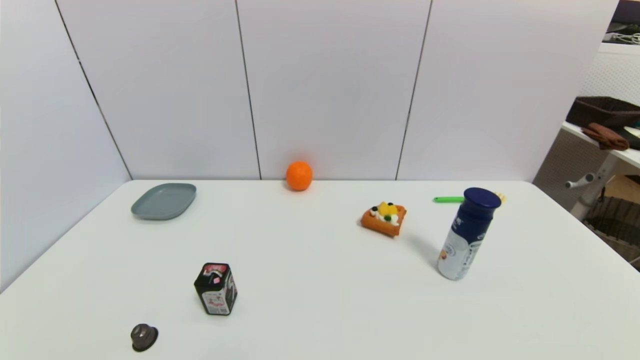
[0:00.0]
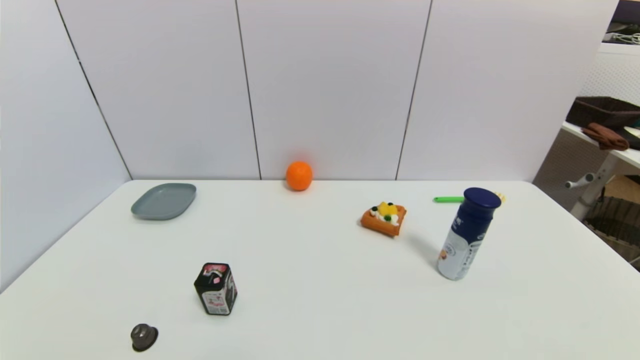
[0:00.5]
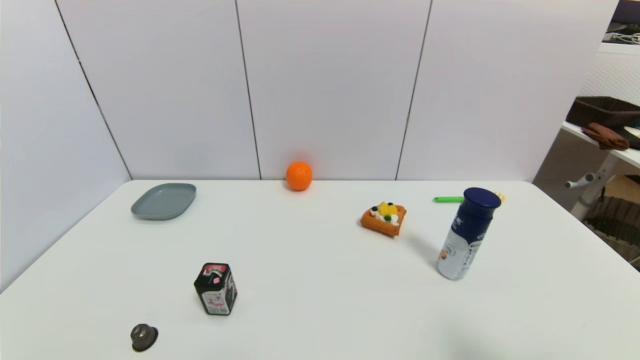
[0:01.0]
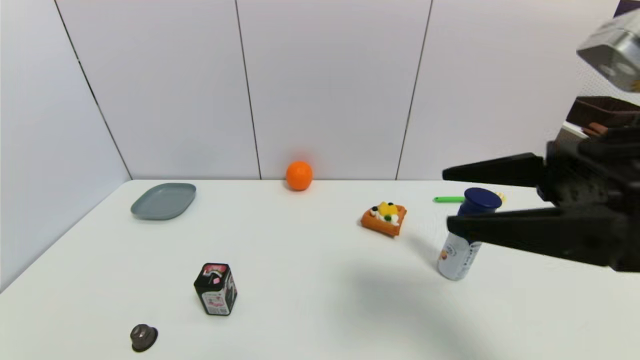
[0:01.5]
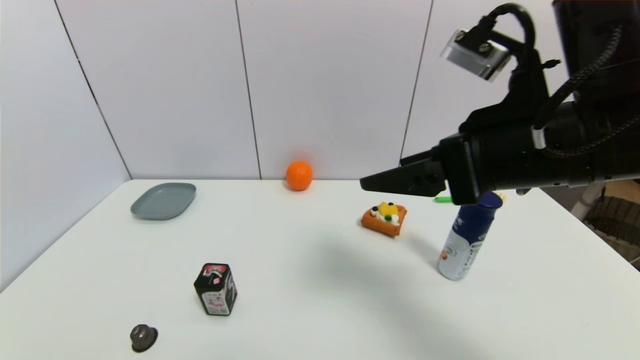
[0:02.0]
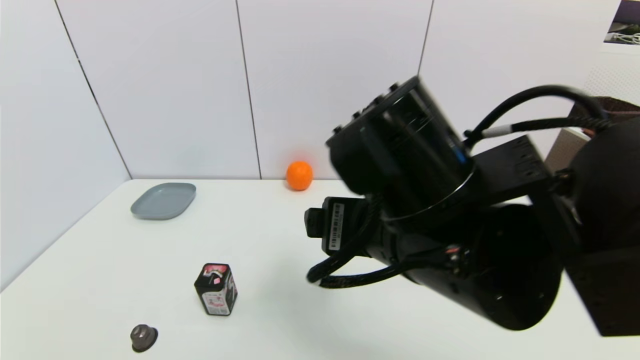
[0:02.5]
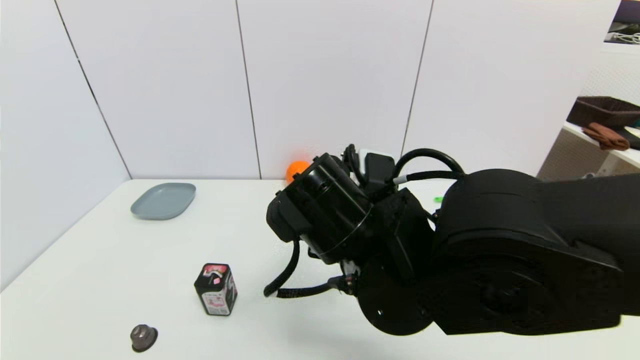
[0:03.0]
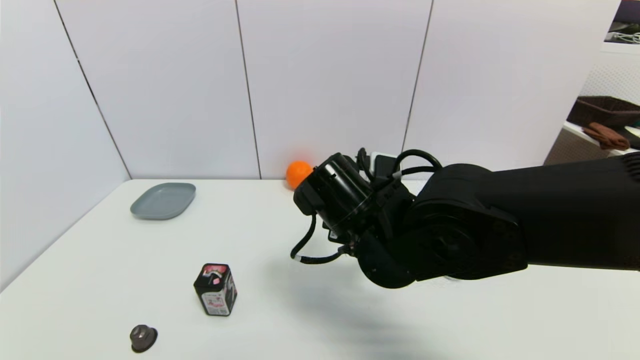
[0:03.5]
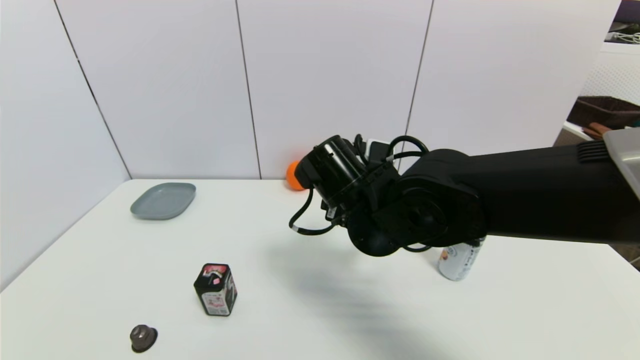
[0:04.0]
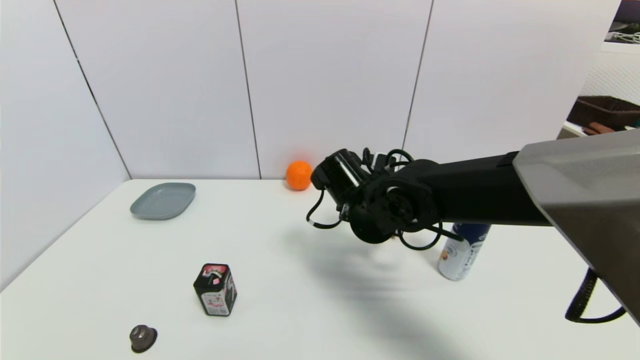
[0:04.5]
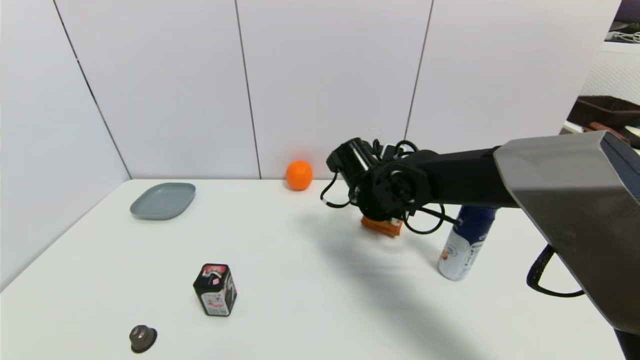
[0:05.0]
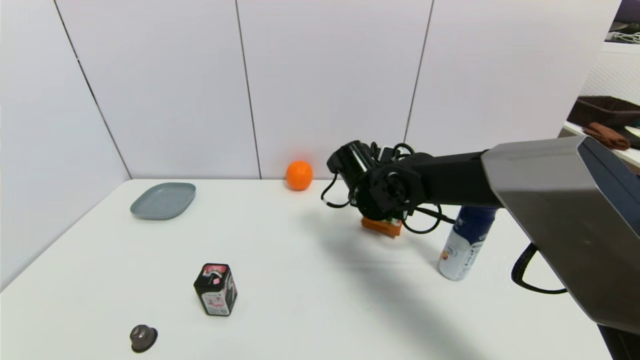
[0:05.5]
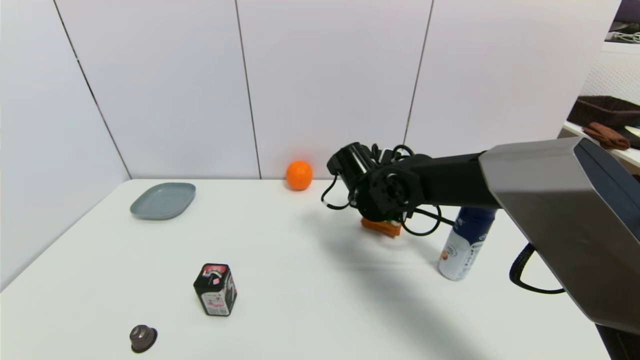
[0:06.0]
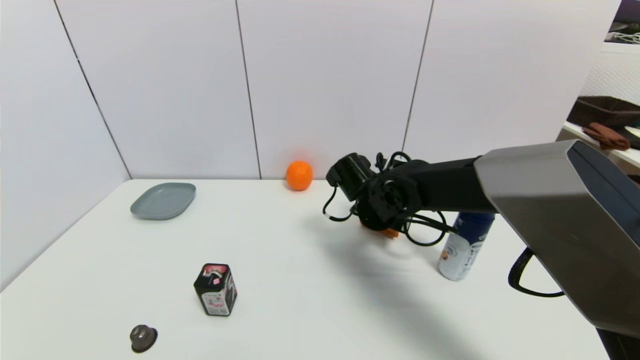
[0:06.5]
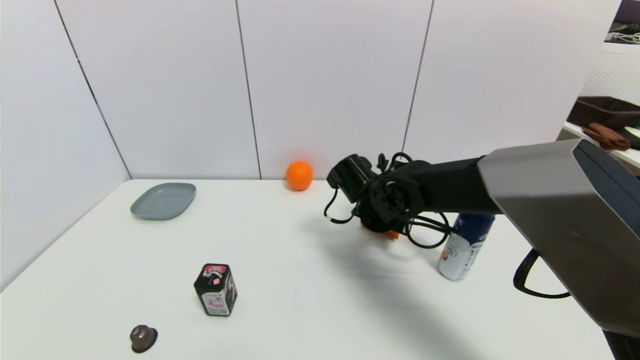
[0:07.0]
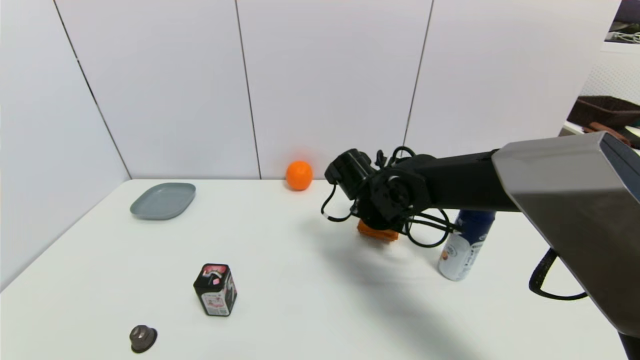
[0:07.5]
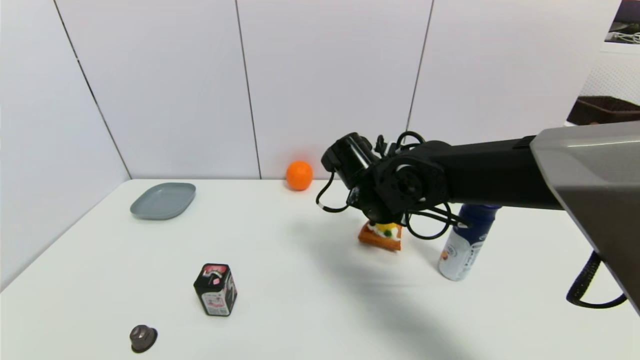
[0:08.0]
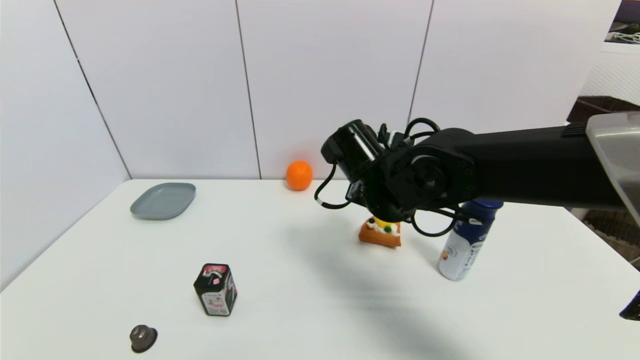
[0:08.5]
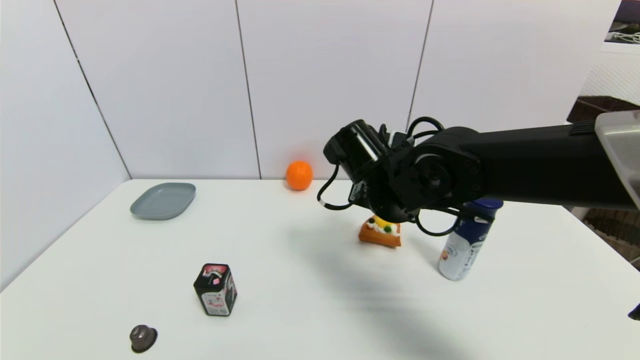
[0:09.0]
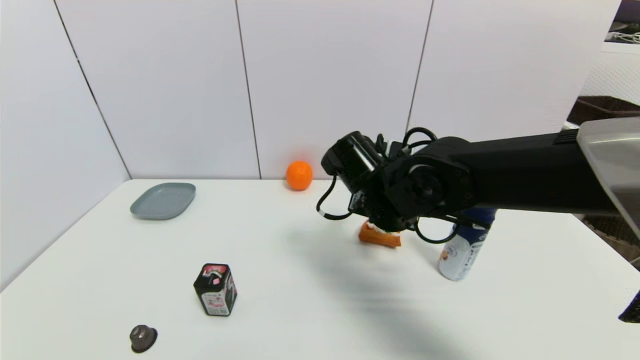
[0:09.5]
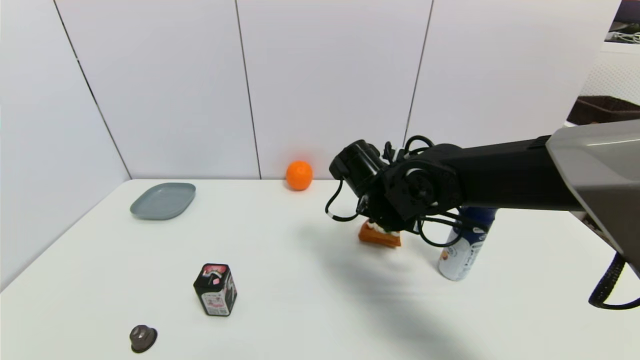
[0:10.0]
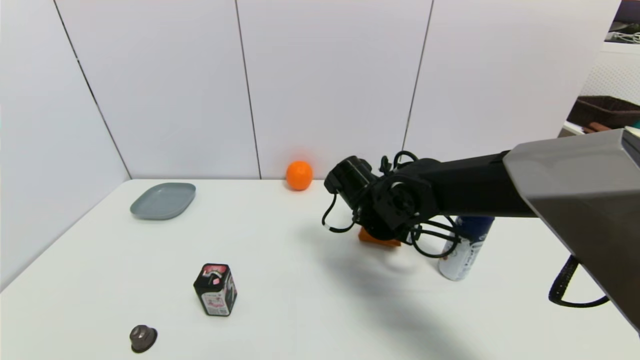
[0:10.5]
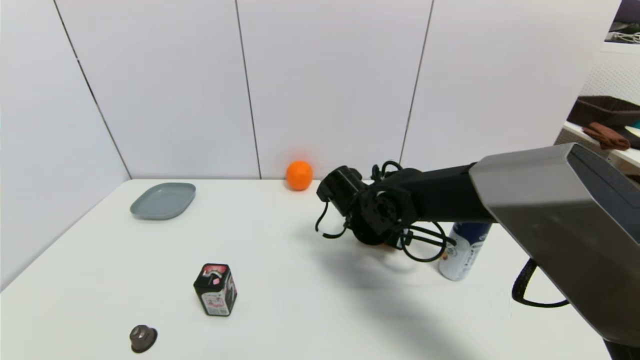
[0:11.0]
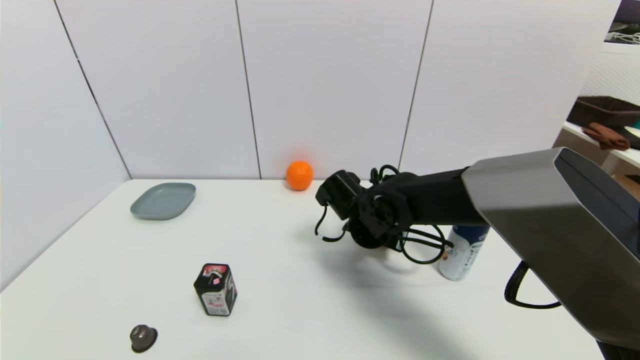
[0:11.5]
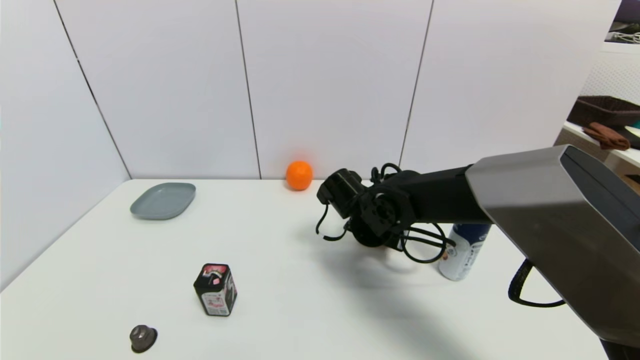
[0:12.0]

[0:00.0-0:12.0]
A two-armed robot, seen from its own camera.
Step, 0:01.5 to 0:11.5: Grasp the pizza with right gripper.
0:00.0 to 0:02.0: The right gripper moves upward, forward and to the left, approximately 35 cm.
0:02.0 to 0:04.0: The right gripper shifts some 20 cm to the left, downward and forward.
0:04.0 to 0:06.0: The right gripper shifts roughly 10 cm forward and downward.
0:06.0 to 0:08.0: The right gripper ends up roughly 5 cm from where it was, and closes its fingers.
0:08.0 to 0:10.0: The right gripper opens up.
0:10.0 to 0:12.0: The right gripper moves downward, some 5 cm.

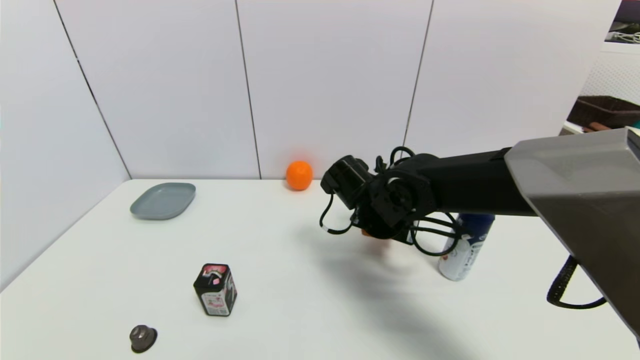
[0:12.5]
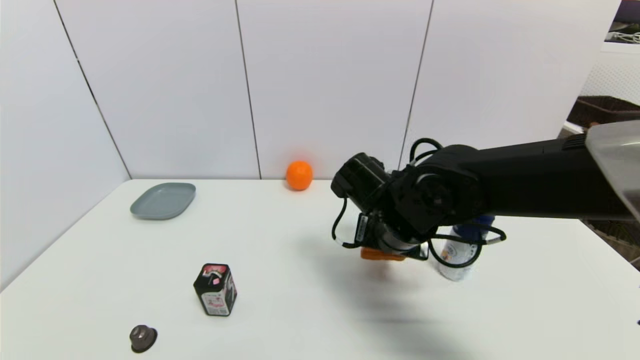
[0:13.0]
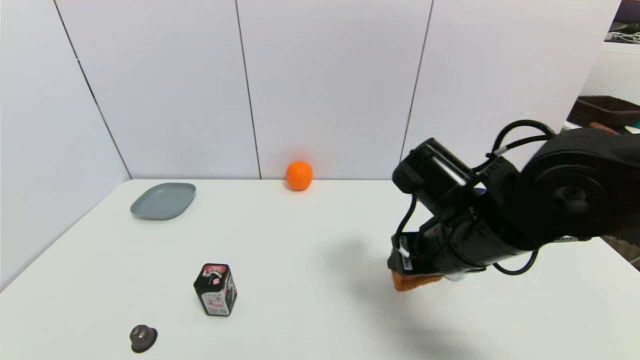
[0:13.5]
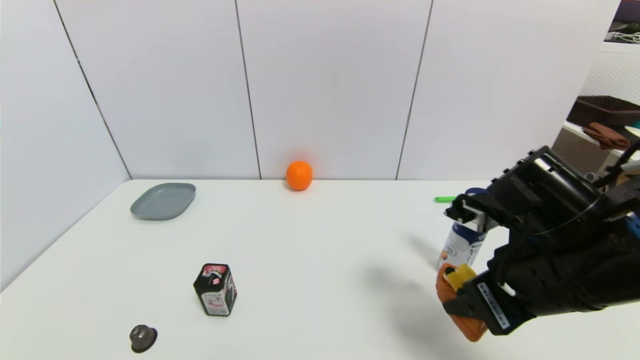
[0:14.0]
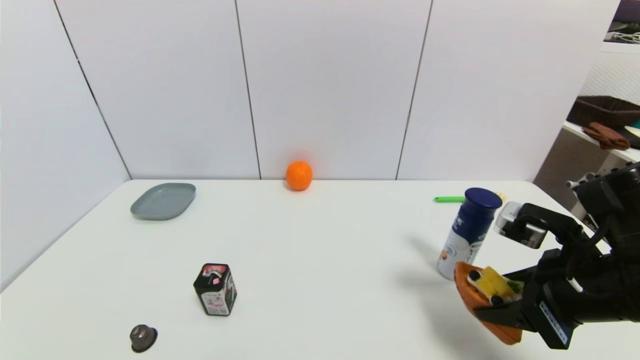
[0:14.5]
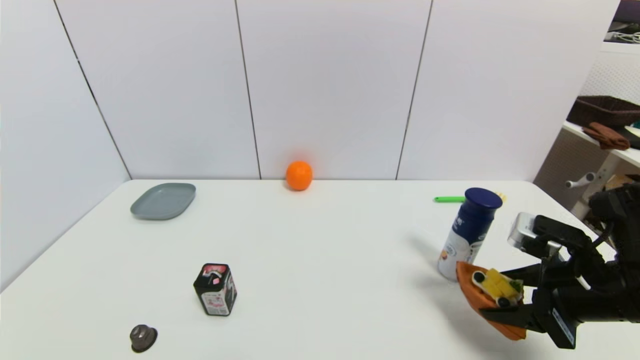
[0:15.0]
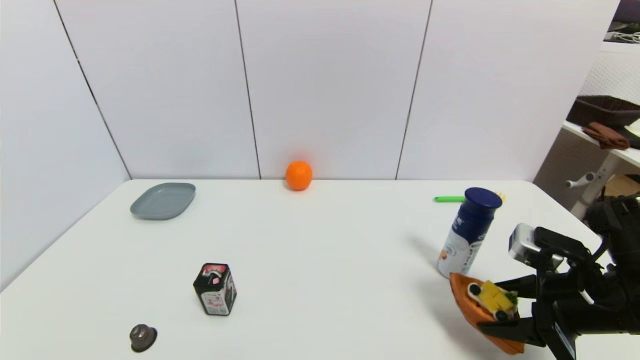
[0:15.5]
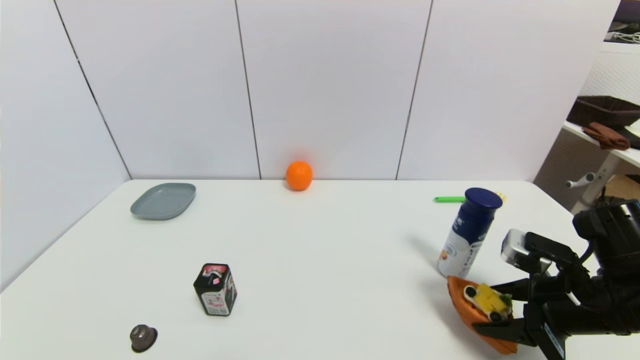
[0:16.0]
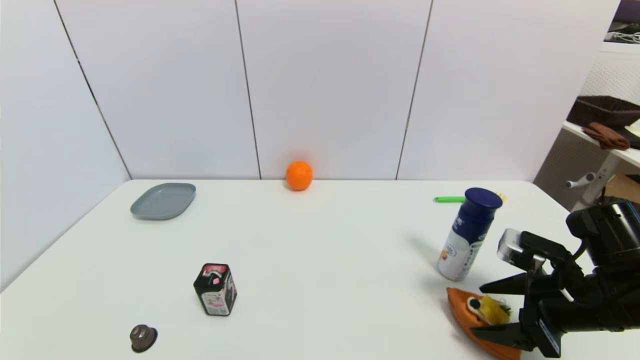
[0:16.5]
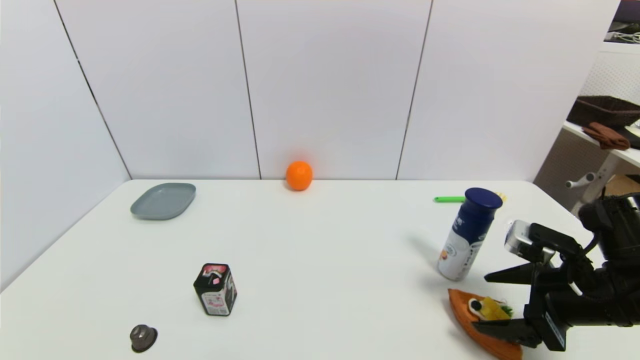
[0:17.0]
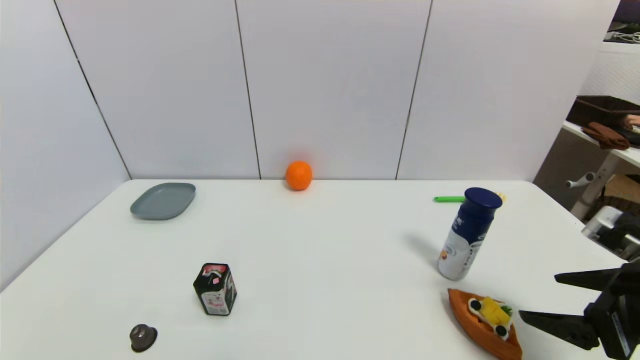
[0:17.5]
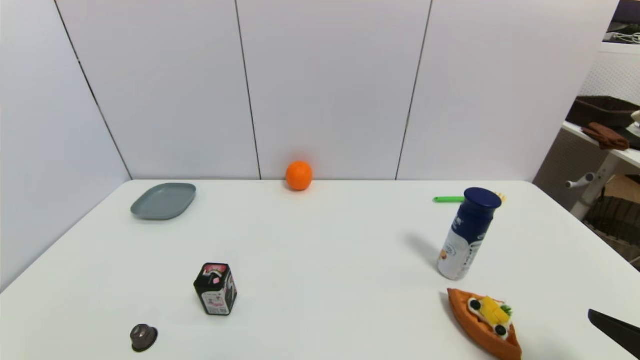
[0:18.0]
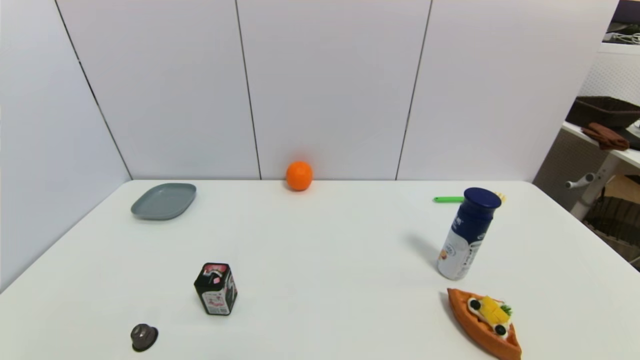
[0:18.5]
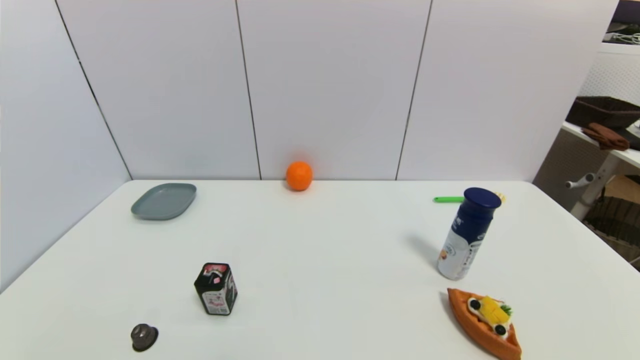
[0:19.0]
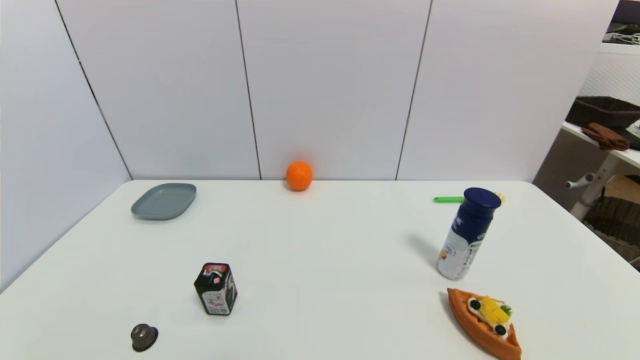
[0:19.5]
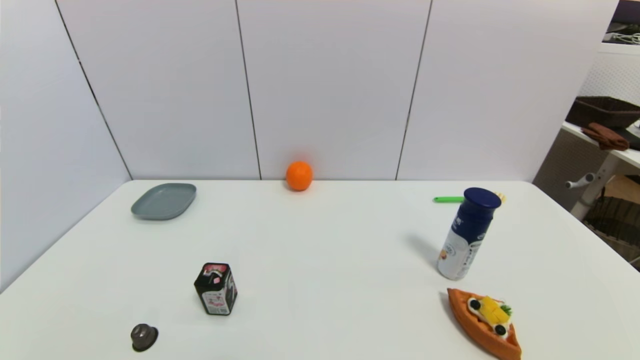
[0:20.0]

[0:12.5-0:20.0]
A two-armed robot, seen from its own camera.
Step, 0:12.5 to 0:16.5: Place the pizza on the table with right gripper.
0:12.5 to 0:14.5: The right gripper shifts roughly 25 cm to the right and backward.
0:14.5 to 0:16.5: The right gripper is displaced downward by approximately 5 cm.
0:16.5 to 0:18.0: The right gripper goes roughly 15 cm backward and upward.
0:18.0 to 0:20.0: The right gripper travels downward and backward by roughly 15 cm.
